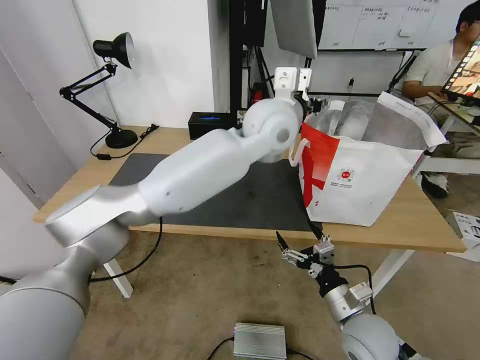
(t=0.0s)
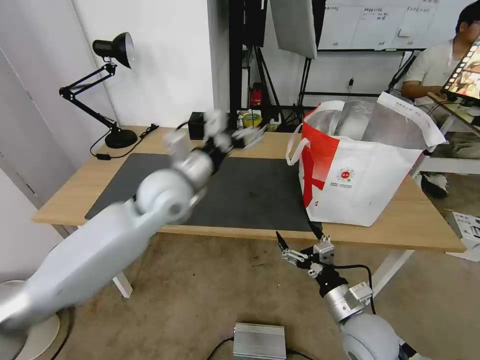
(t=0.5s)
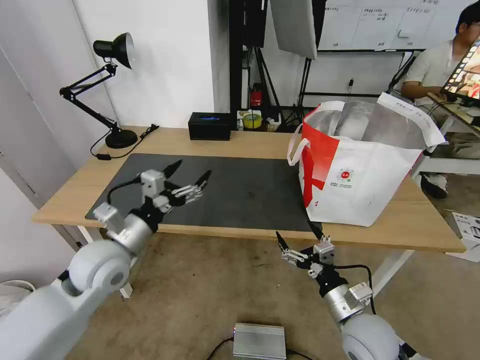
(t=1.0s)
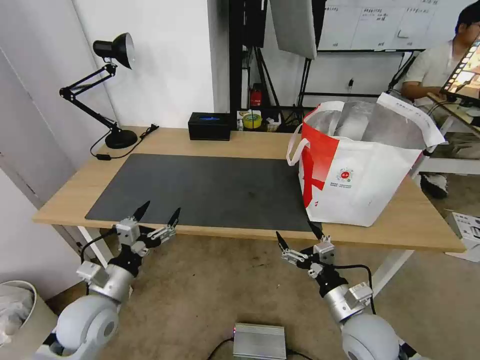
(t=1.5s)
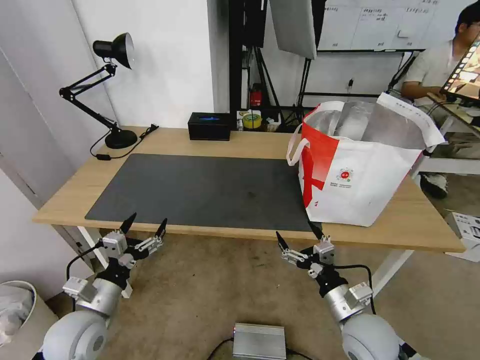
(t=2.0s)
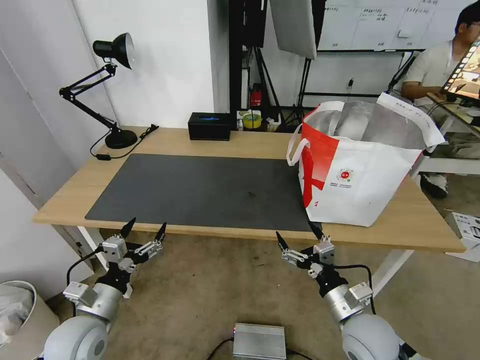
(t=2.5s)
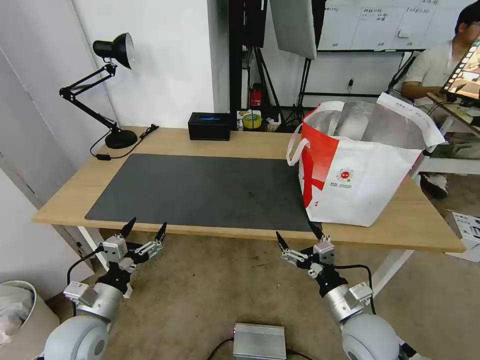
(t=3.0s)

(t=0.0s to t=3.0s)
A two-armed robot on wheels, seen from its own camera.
Task of the whole recording: Pick up the trash from the table and place it into the takeout bag.
t=0.0s - t=1.5s: The left gripper travels to the left, downward and backward by roughly 50 cm.
t=1.5s - t=3.0s: The grippers stay close to where they were, moving slightly.
